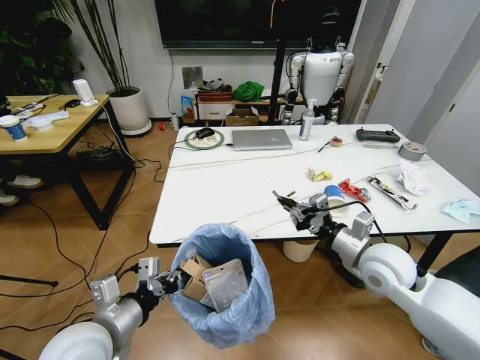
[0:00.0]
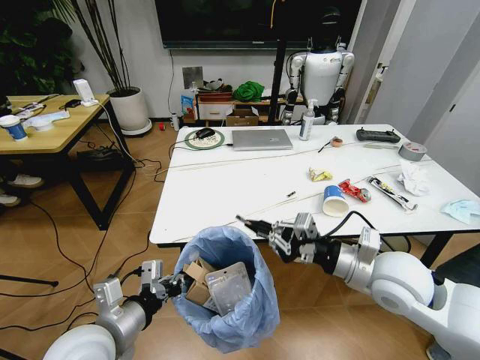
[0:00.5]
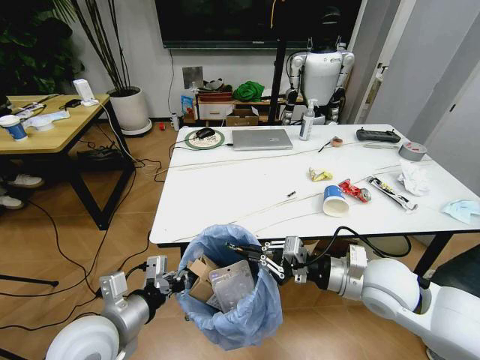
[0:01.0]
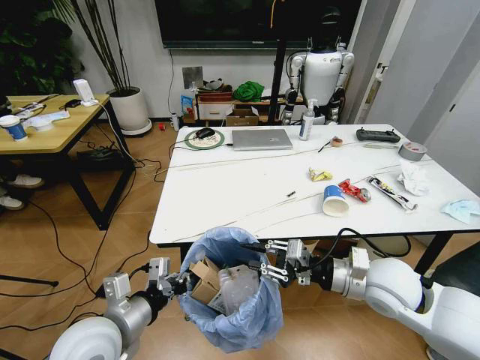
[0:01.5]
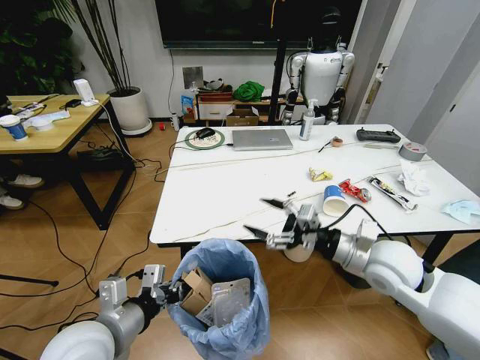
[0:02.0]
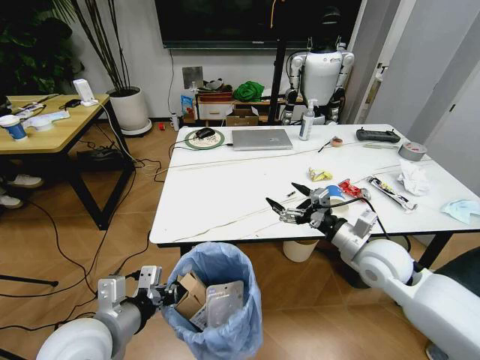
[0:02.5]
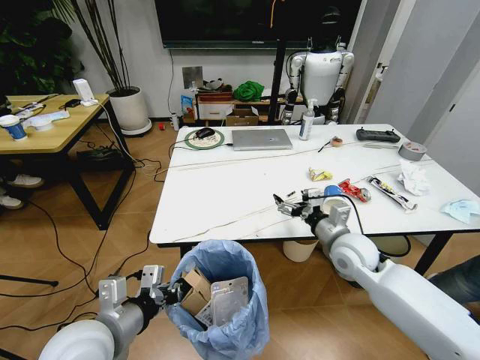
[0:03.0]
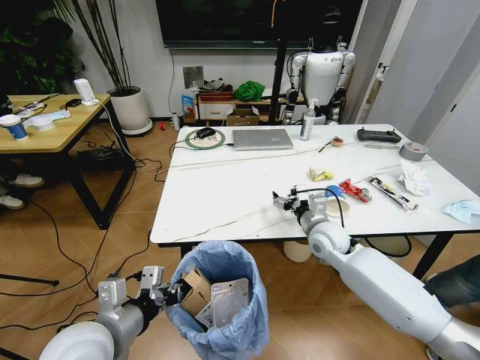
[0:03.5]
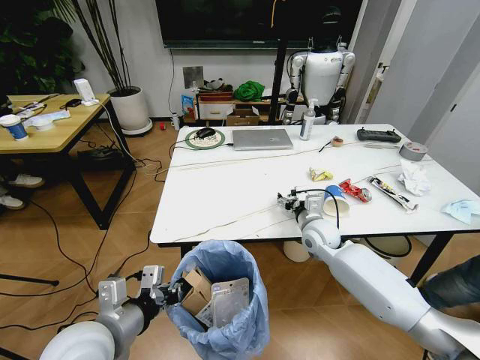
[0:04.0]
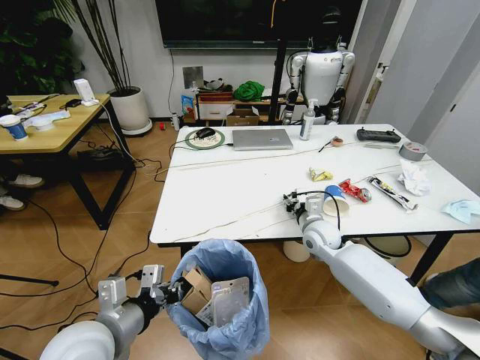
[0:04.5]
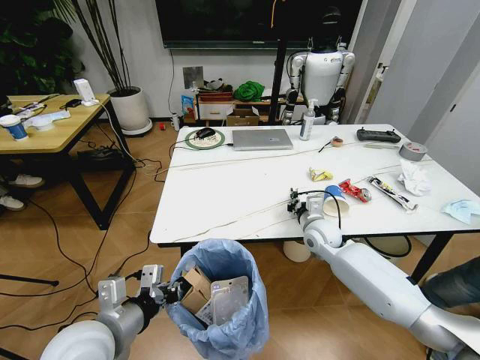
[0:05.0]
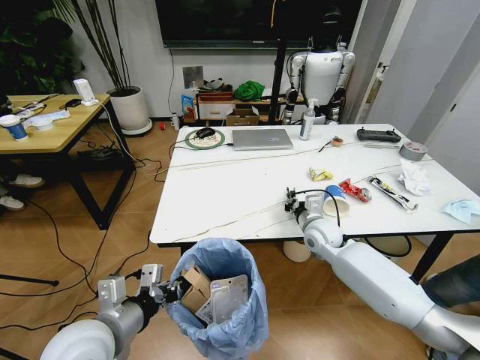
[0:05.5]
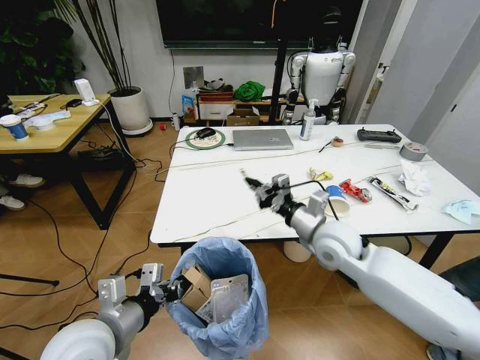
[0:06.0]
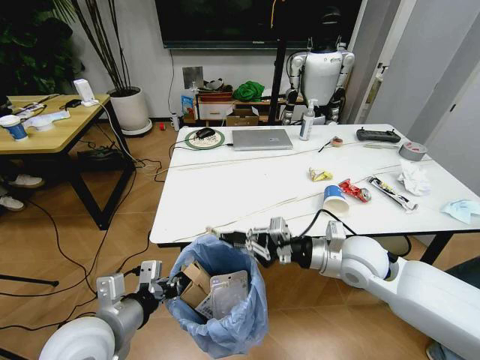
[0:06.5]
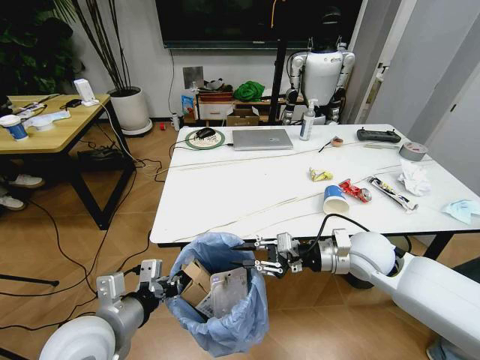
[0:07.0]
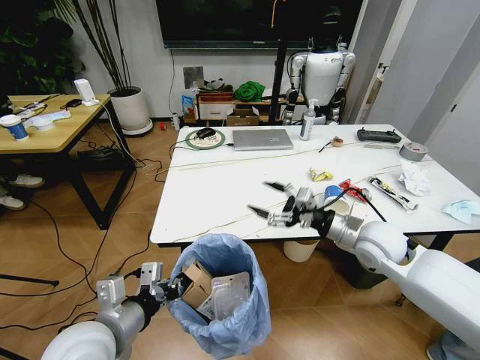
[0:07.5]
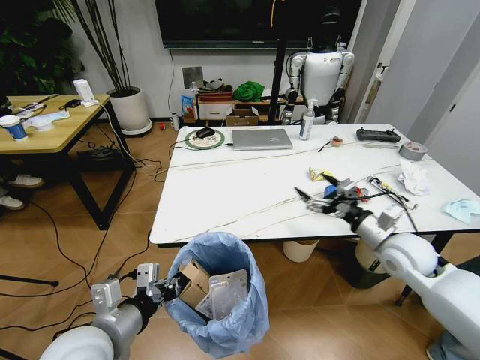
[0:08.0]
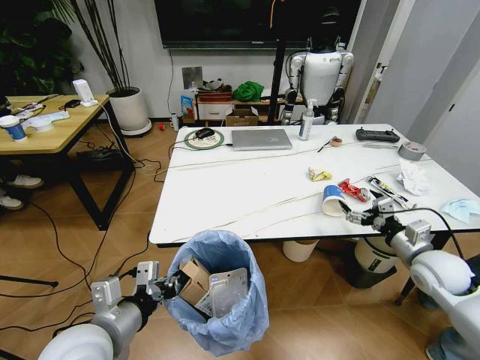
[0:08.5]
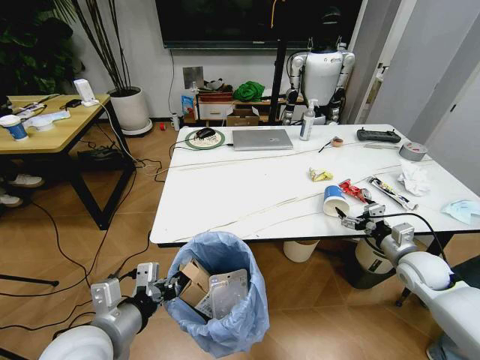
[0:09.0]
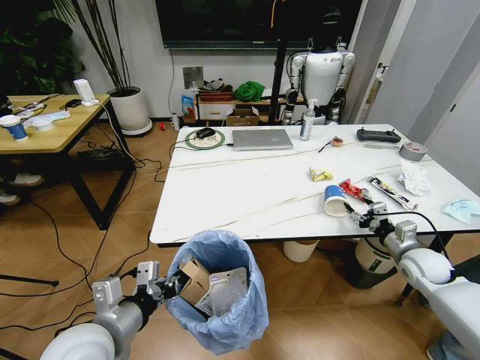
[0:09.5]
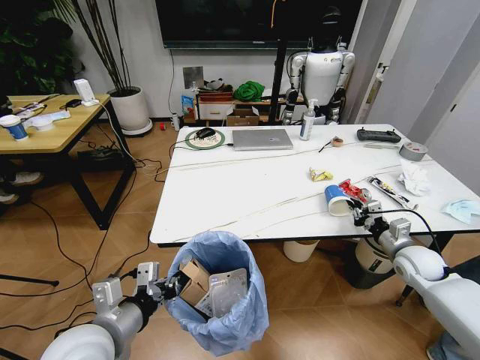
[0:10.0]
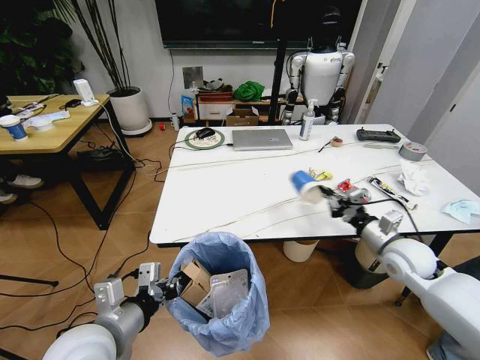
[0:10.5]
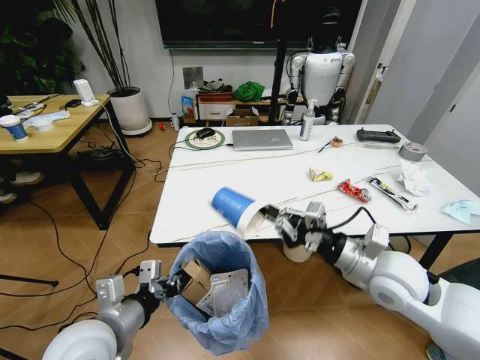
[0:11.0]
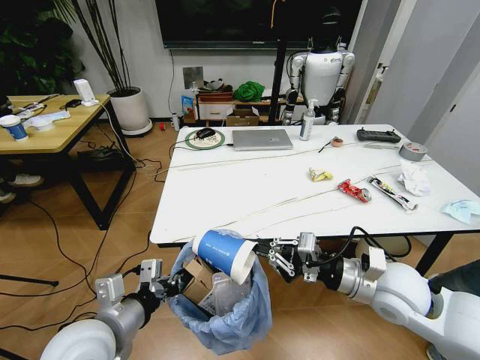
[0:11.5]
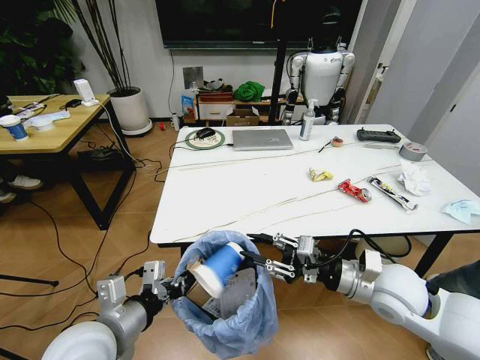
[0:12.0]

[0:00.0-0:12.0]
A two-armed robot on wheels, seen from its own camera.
Task of the whole recording: Pick up the trash bin and place the trash from the table into it.
0:00.0 to 0:02.0: The right gripper opens up.
0:02.0 to 0:04.0: The right gripper is displaced forward, downward and to the left by roughly 20 cm.
0:04.0 to 0:06.0: The right gripper goes about 15 cm upward and backward, and closes.
0:06.0 to 0:08.0: The right gripper is displaced to the right by about 15 cm, and opens its fingers.
0:08.0 to 0:10.0: The right gripper is displaced to the right and downward by about 15 cm, and closes its fingers.
0:10.0 to 0:12.0: The right gripper shifts roughly 20 cm to the left, backward and upward.

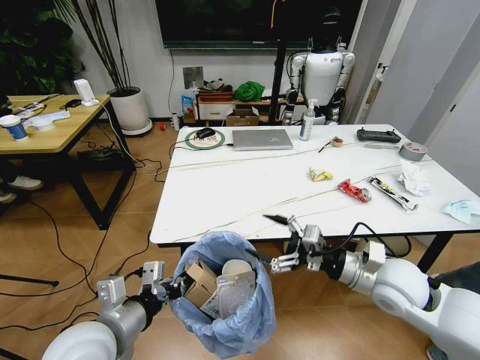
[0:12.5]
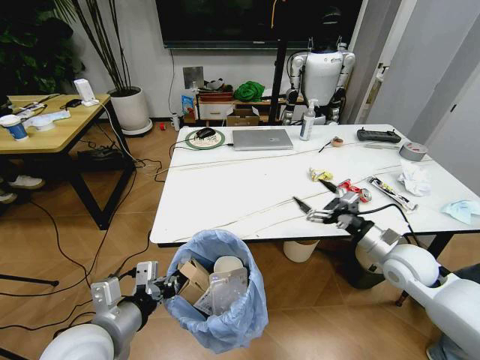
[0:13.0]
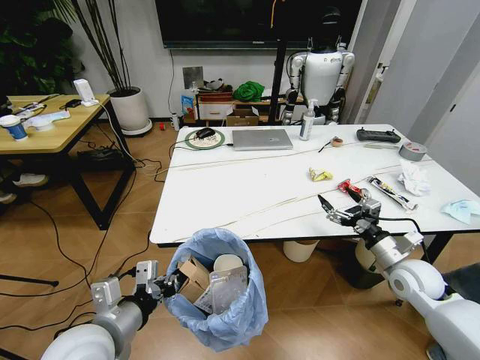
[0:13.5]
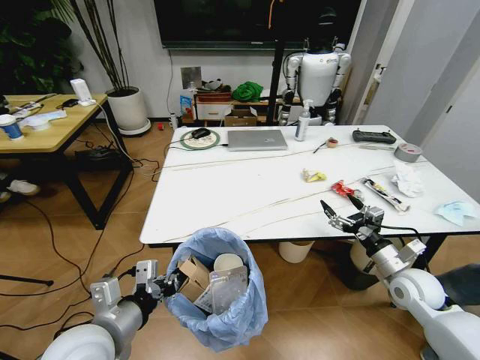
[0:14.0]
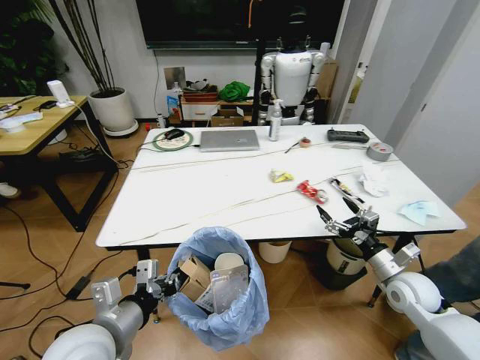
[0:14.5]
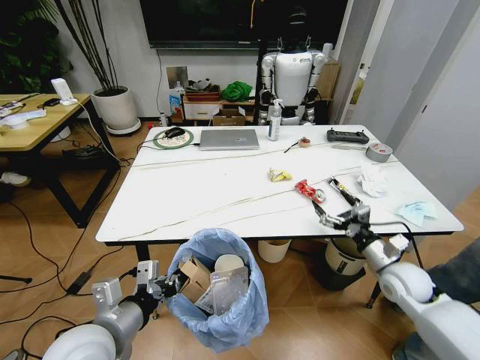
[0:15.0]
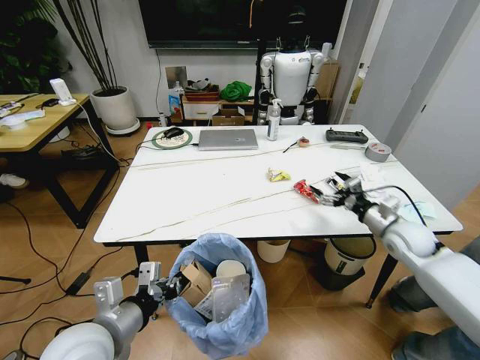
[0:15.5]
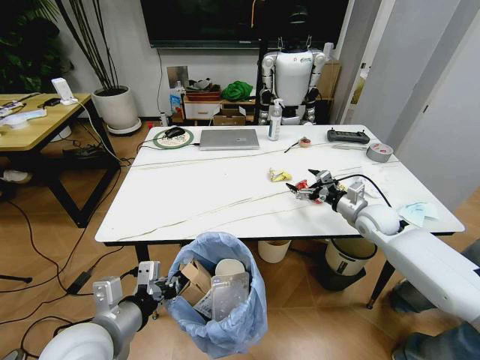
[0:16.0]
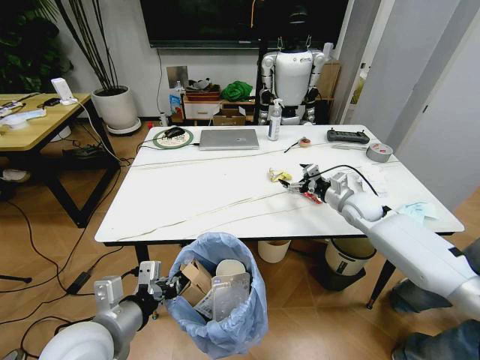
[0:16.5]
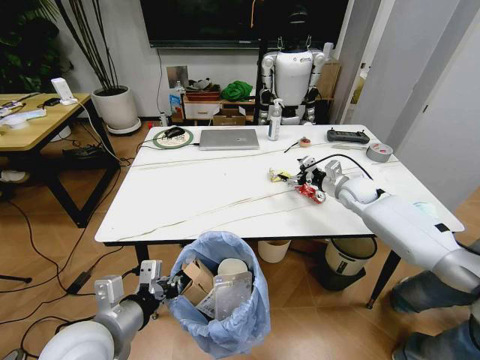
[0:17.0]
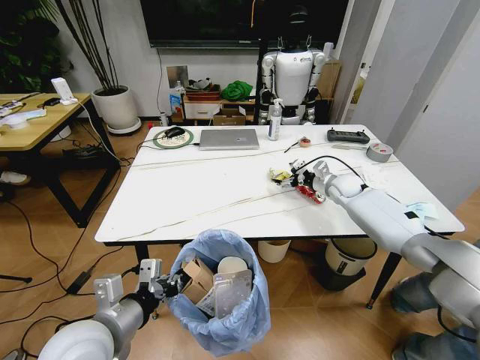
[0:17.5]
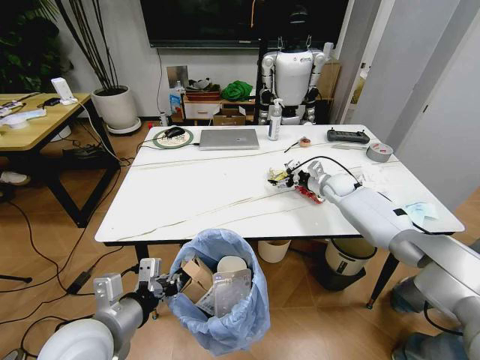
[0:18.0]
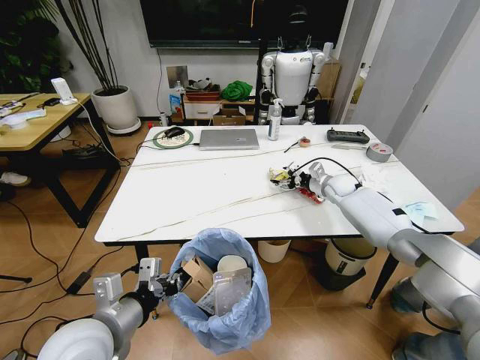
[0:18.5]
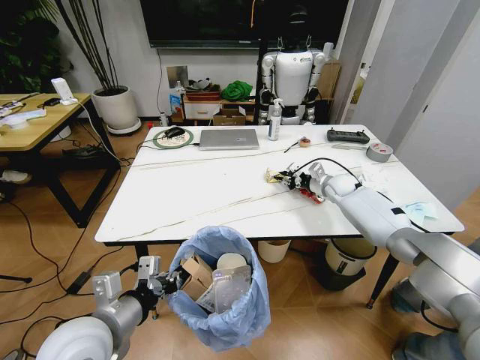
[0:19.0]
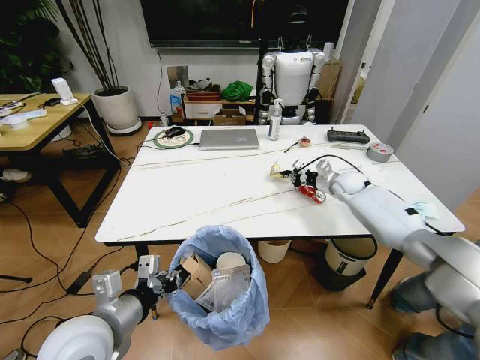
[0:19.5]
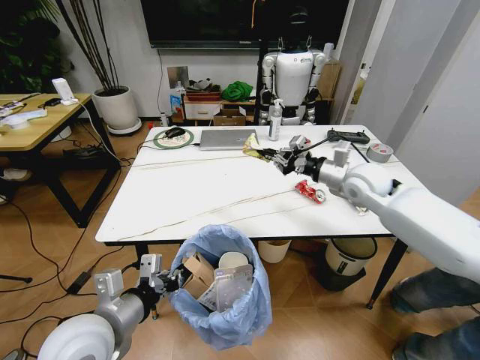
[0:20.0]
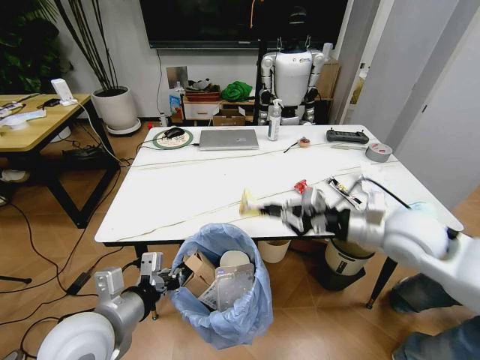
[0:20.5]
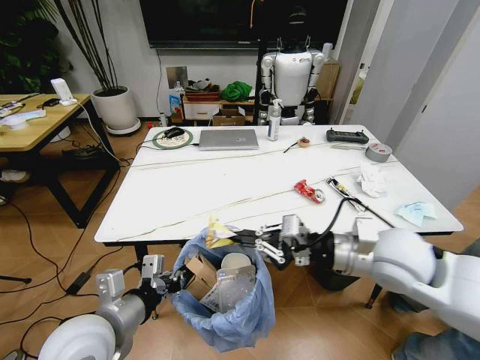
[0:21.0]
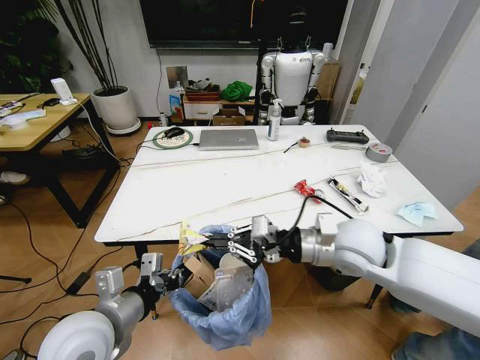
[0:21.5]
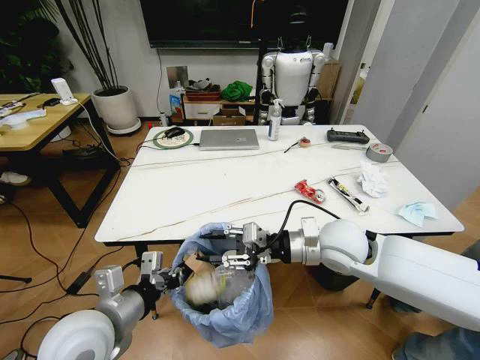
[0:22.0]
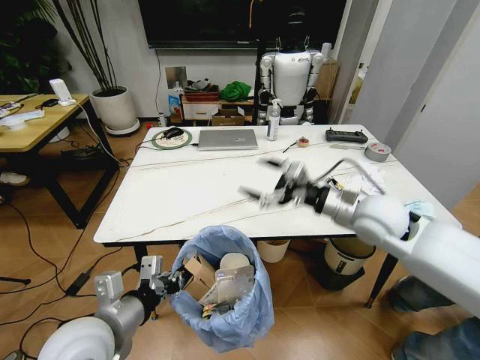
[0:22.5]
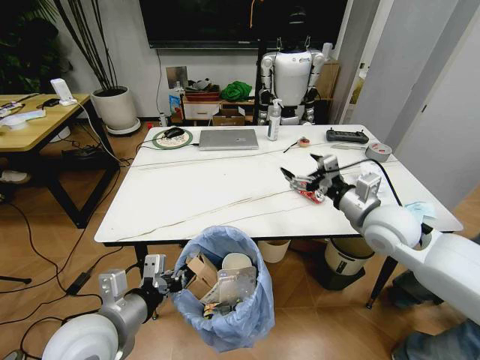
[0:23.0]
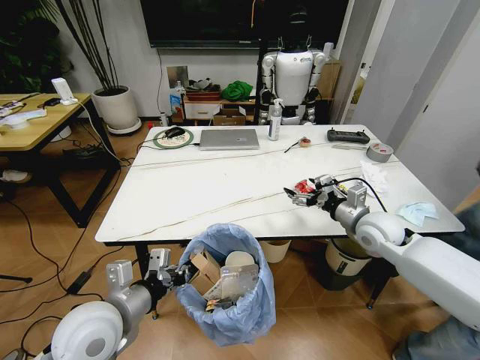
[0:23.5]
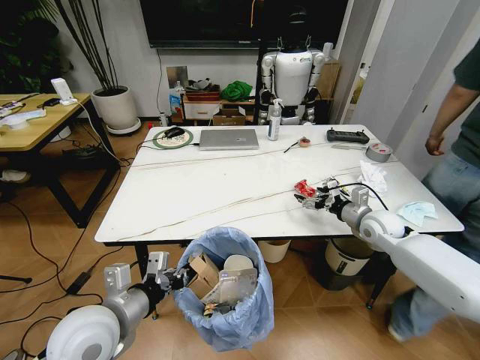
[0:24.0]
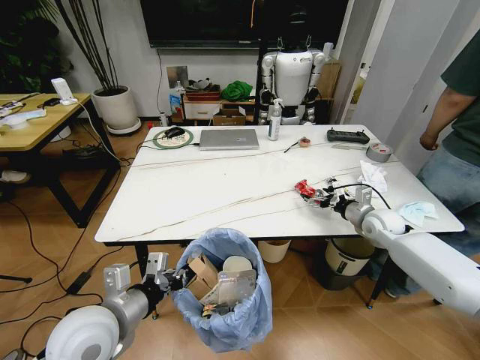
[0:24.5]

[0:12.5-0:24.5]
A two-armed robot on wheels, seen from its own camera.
Task of the whole recording: Pick up the trash bin and place the trash from the table into it.
0:12.5 to 0:14.5: The right gripper is displaced to the right and downward by roughly 15 cm.
0:14.5 to 0:16.5: The right gripper travels forward by some 20 cm.
0:16.5 to 0:18.5: The right gripper is displaced forward by about 10 cm.
0:18.5 to 0:20.5: The right gripper moves backward and upward, roughly 30 cm, and closes up.
0:20.5 to 0:22.5: The right gripper travels to the left and back again, about 10 cm each way, and opens.
0:22.5 to 0:24.5: The right gripper heads downward, to the right and forward, covering roughly 20 cm.

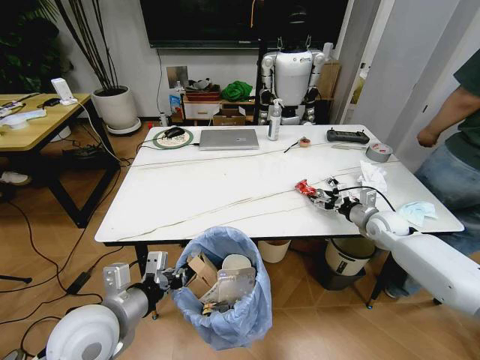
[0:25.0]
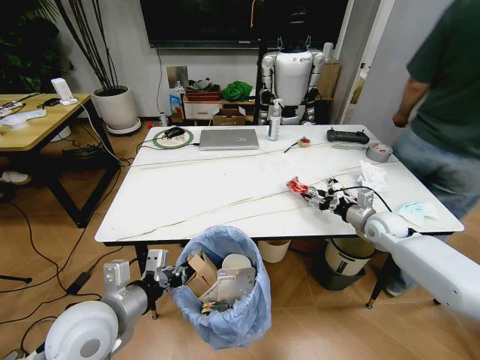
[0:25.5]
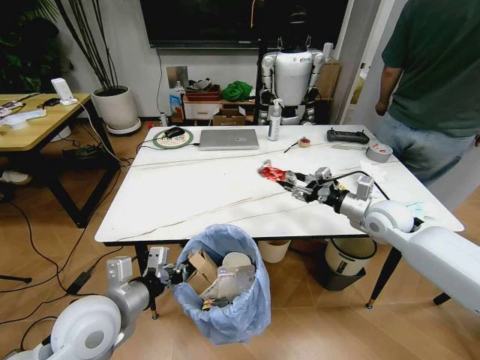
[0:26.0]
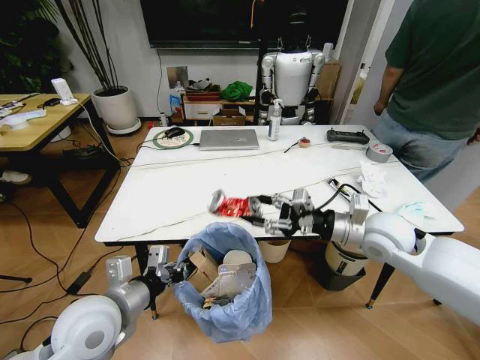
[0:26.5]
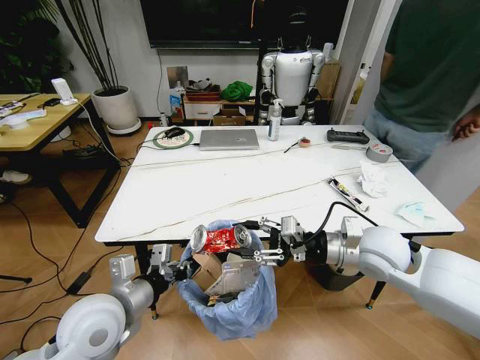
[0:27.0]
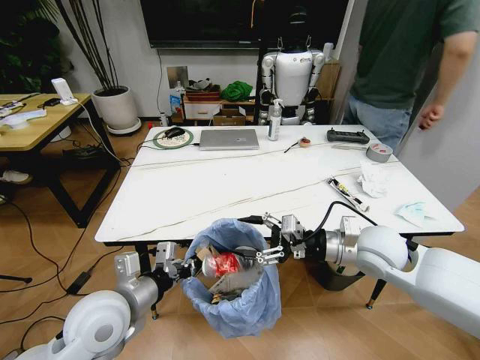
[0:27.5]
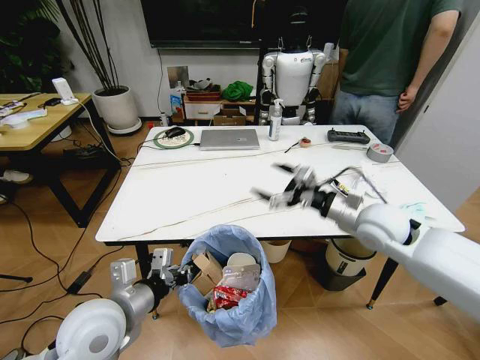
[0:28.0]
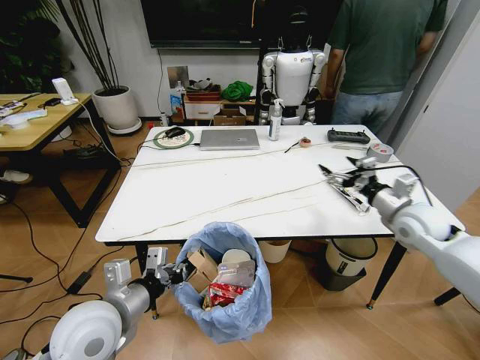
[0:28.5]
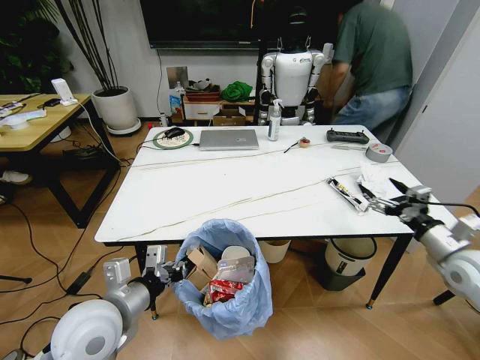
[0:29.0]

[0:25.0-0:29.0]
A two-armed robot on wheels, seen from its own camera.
Task of the whole recording: Pick up the trash bin and place the trash from the table into it.
0:25.0 to 0:27.0: The right gripper moves backward, to the left and upward, some 25 cm.
0:27.0 to 0:29.0: The right gripper moves to the right, roughly 20 cm, and opens.
